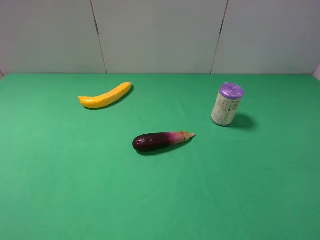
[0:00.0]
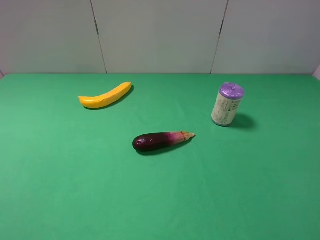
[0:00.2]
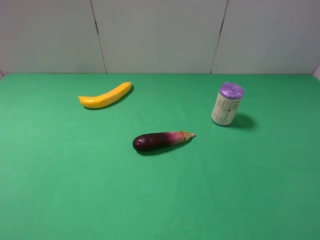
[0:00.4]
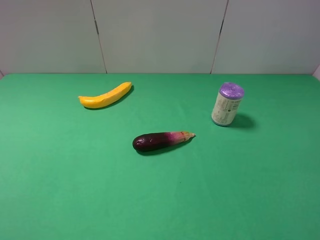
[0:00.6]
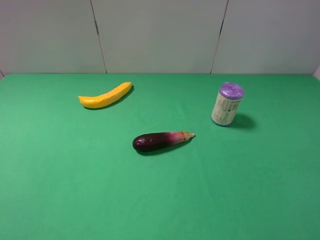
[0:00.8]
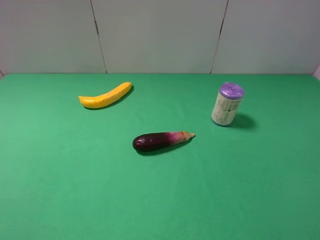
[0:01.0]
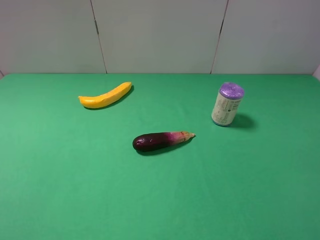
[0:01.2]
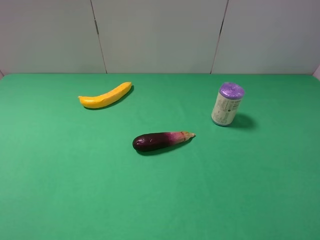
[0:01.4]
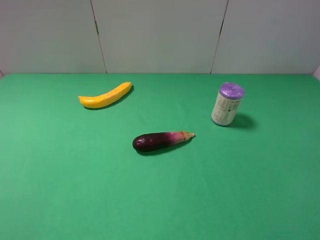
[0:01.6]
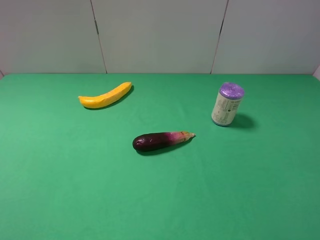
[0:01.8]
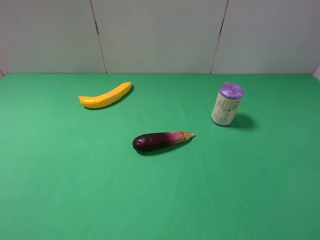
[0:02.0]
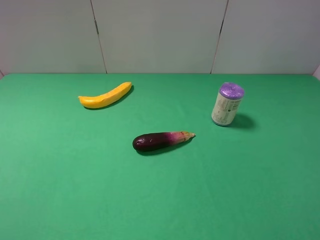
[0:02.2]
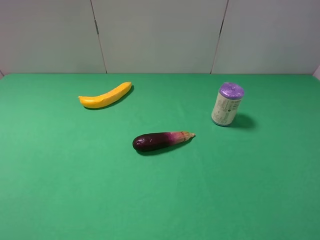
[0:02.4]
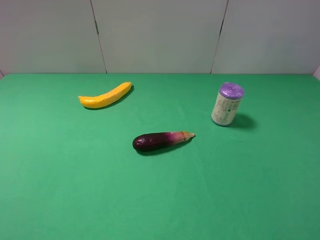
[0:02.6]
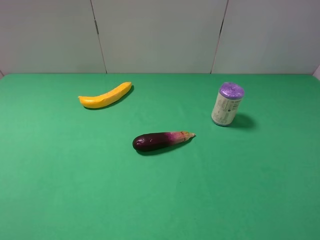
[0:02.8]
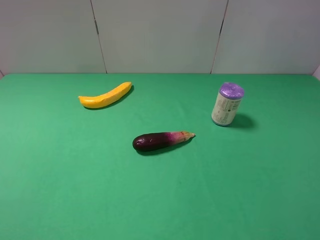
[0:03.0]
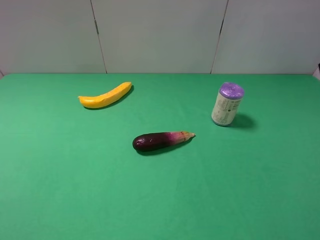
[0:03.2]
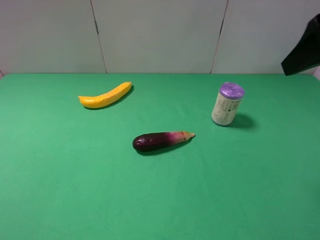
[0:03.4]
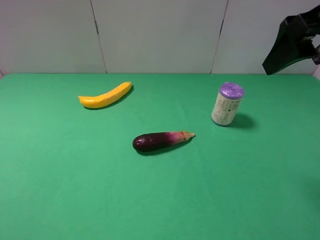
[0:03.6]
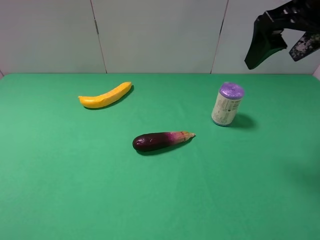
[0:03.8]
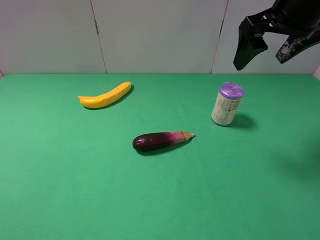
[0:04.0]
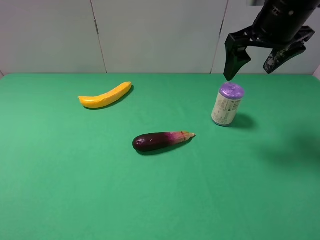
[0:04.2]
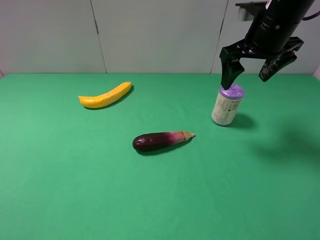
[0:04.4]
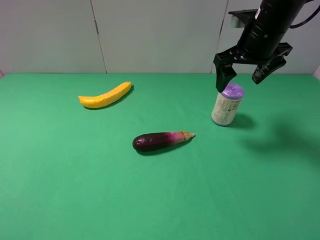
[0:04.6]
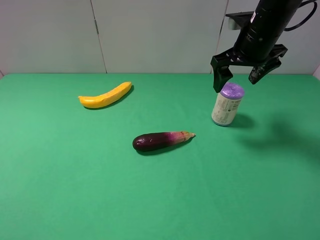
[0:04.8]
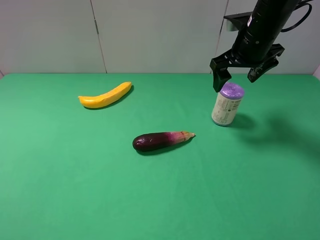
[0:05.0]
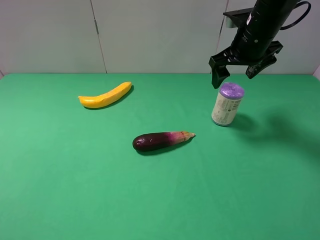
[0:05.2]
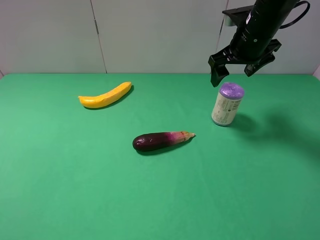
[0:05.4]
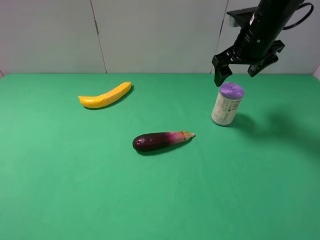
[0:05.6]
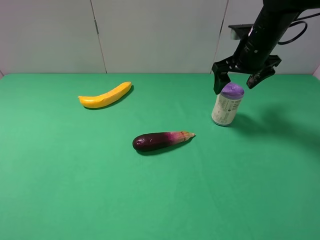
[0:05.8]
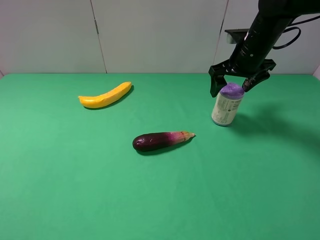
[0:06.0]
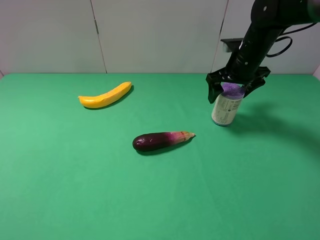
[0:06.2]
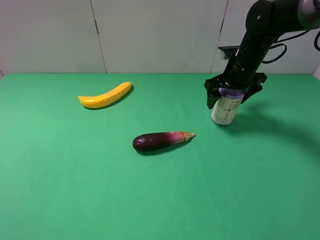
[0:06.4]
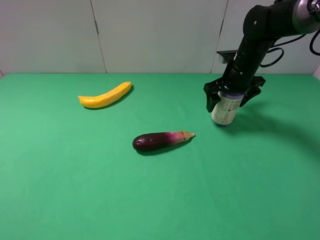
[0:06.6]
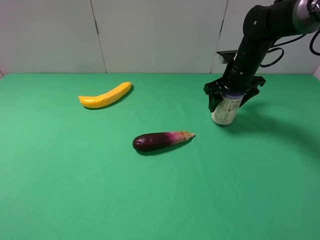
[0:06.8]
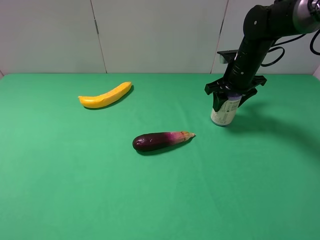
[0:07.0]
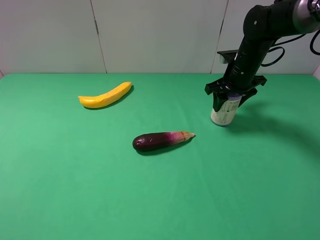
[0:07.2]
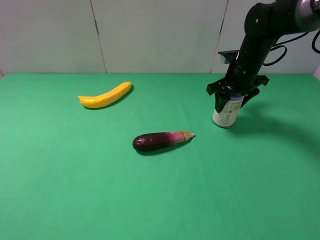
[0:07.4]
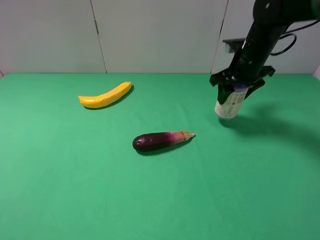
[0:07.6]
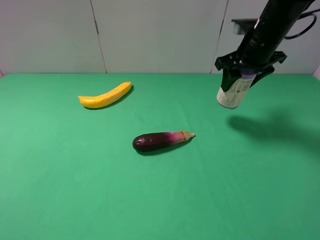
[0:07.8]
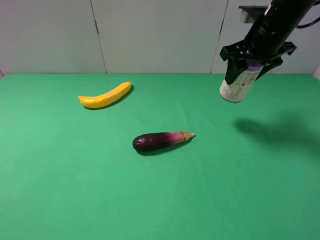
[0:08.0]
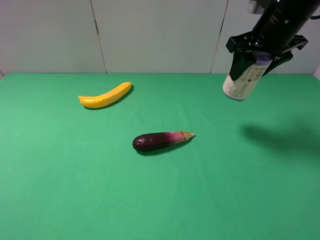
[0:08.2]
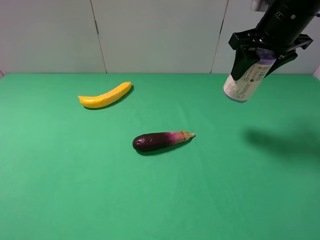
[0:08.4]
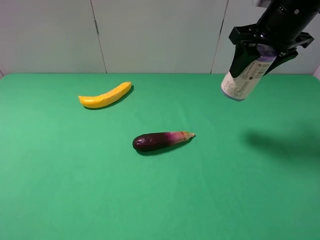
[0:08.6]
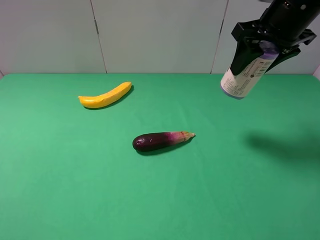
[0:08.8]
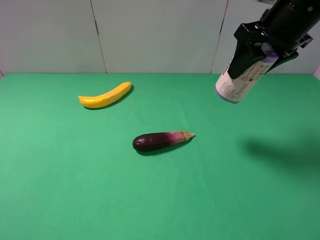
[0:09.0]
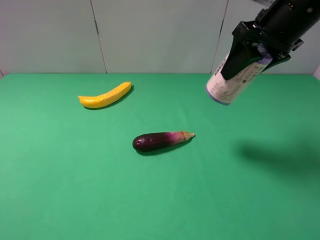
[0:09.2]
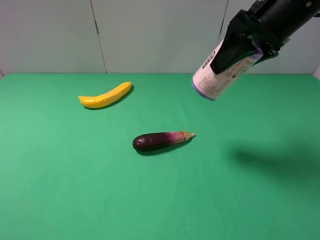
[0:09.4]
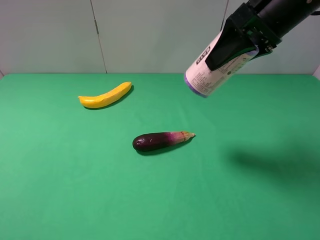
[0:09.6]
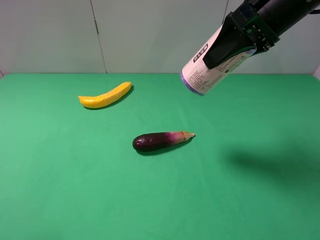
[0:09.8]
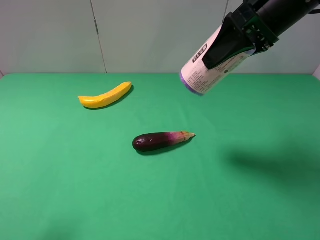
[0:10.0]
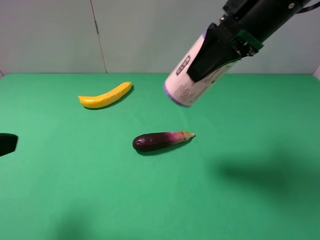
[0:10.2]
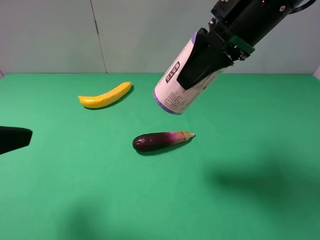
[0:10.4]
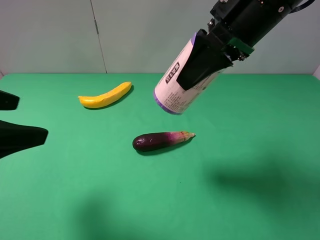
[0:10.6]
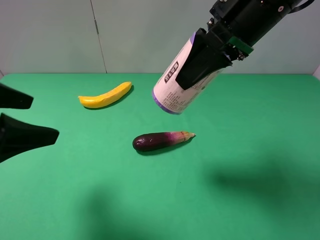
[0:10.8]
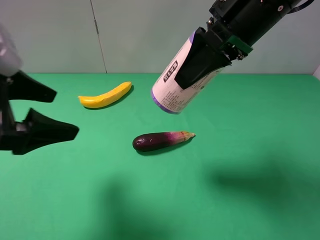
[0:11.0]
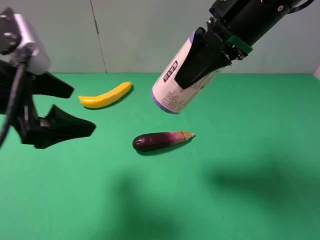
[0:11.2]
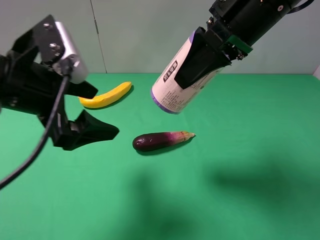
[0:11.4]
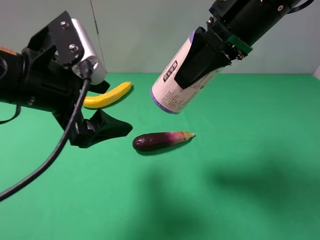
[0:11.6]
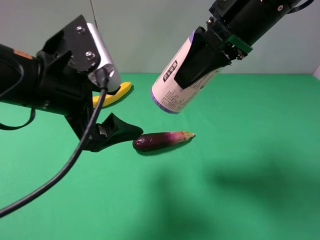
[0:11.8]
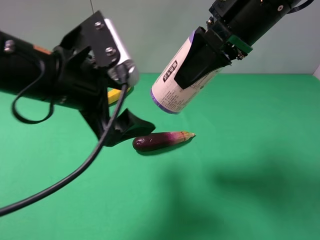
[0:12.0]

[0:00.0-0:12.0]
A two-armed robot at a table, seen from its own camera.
Task of the whole recording: use the right gripper to pick up the item and transfer it from the right gripper to the left gripper.
Step, 0:00.0 to 0:06.8: Use the right gripper to grab the purple garbage bag on the right side of the table.
0:00.0 to 0:01.6: Both grippers stay put.
0:03.0 to 0:04.4: The right gripper shifts about 25 cm forward, to the left and downward.
0:04.4 to 0:06.0: The right gripper shifts approximately 10 cm downward and forward.
0:06.0 to 0:07.6: The right gripper closes its fingers.
0:07.6 to 0:09.0: The right gripper goes roughly 15 cm upward and backward.
0:09.0 to 0:10.4: The left gripper goes some 10 cm forward. The right gripper is displaced to the left by some 5 cm.
0:10.4 to 0:12.0: The left gripper moves to the right and forward, about 20 cm.

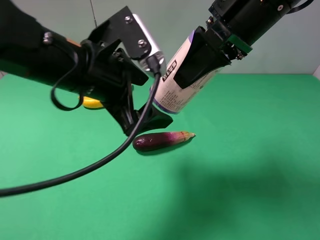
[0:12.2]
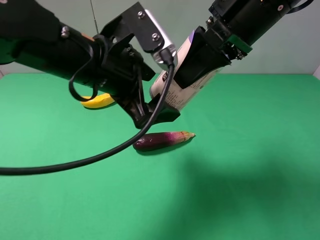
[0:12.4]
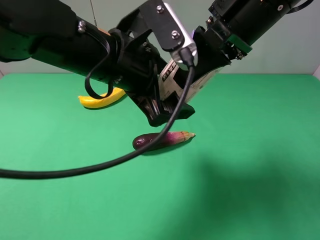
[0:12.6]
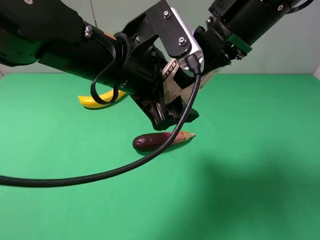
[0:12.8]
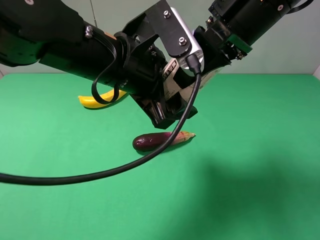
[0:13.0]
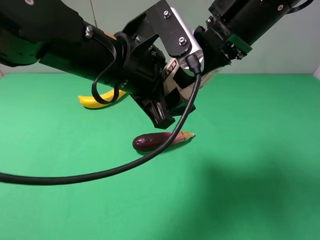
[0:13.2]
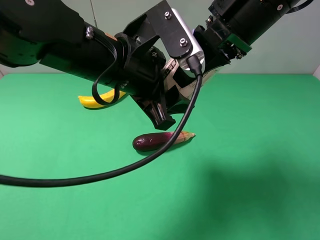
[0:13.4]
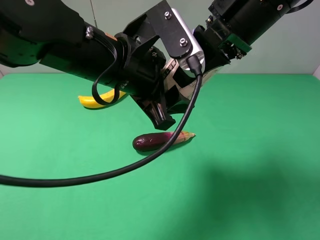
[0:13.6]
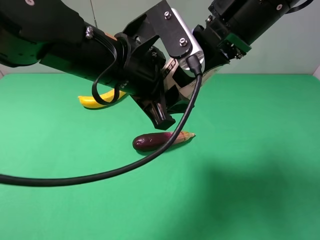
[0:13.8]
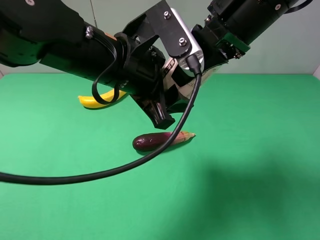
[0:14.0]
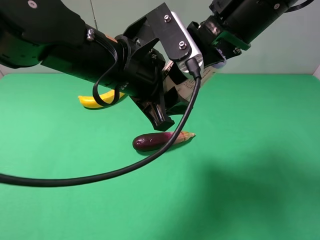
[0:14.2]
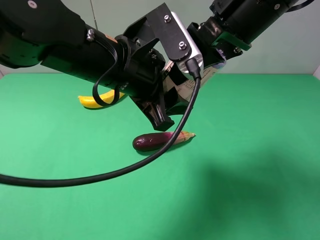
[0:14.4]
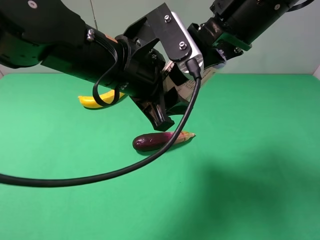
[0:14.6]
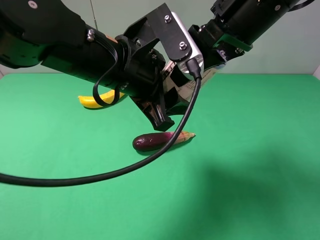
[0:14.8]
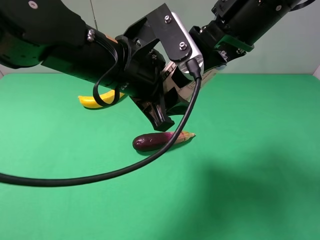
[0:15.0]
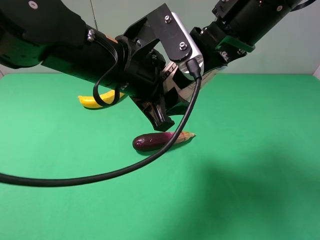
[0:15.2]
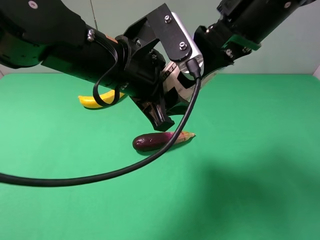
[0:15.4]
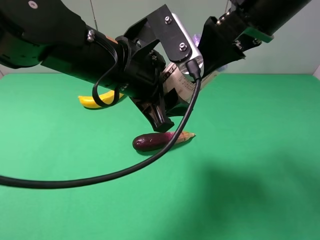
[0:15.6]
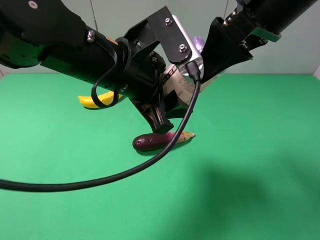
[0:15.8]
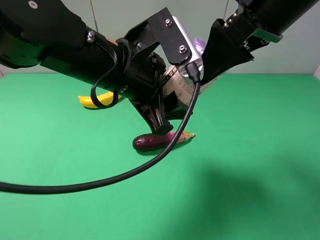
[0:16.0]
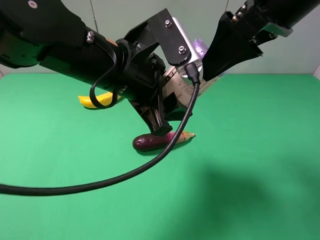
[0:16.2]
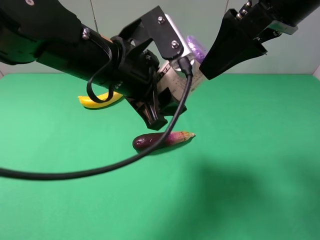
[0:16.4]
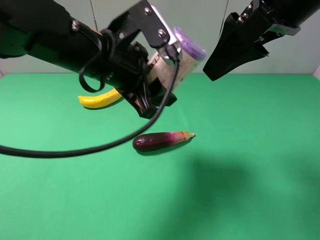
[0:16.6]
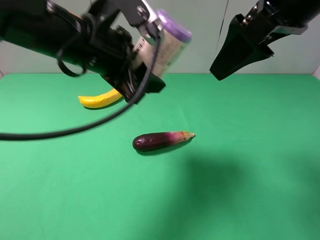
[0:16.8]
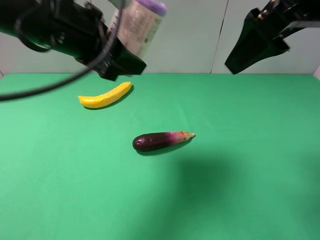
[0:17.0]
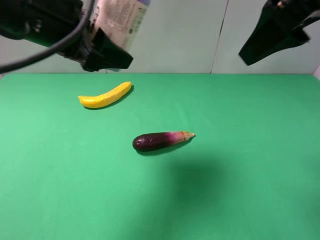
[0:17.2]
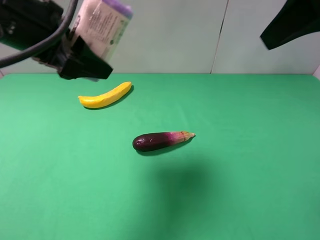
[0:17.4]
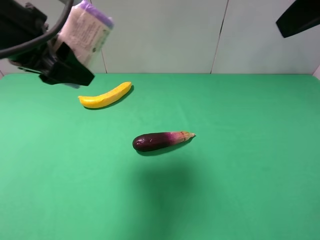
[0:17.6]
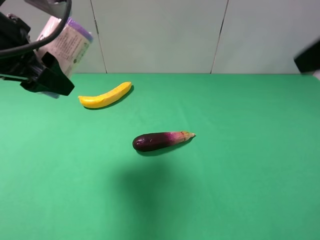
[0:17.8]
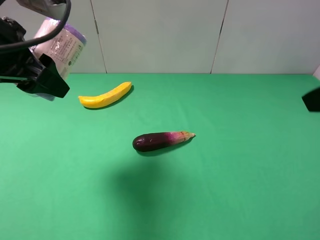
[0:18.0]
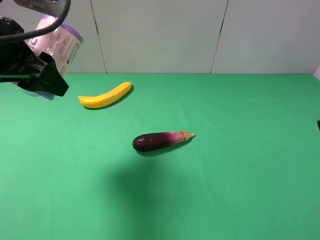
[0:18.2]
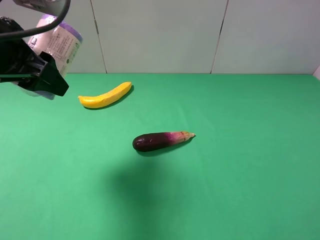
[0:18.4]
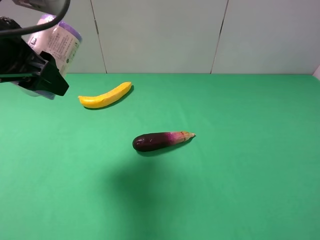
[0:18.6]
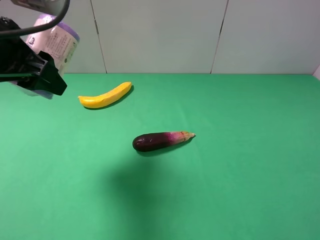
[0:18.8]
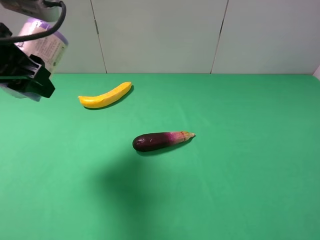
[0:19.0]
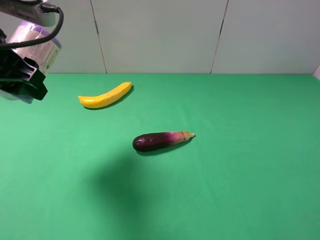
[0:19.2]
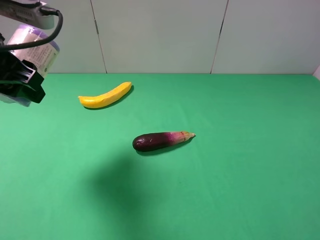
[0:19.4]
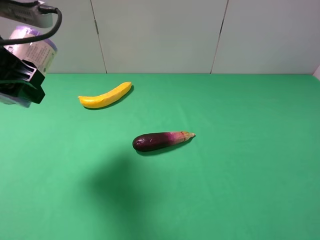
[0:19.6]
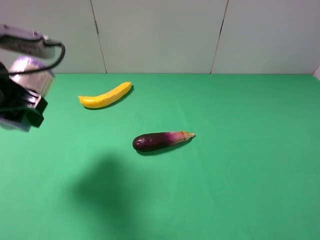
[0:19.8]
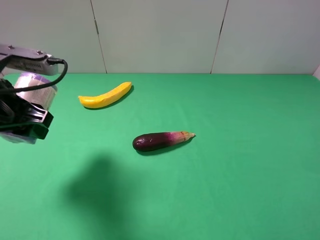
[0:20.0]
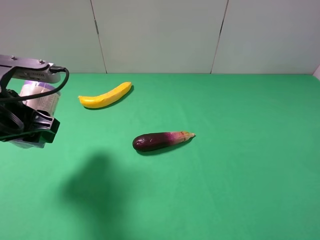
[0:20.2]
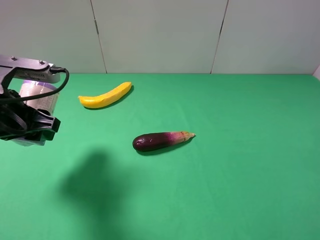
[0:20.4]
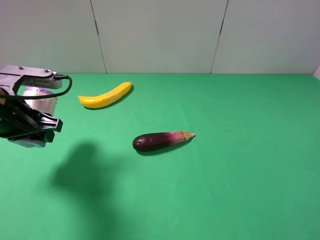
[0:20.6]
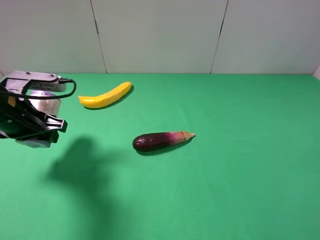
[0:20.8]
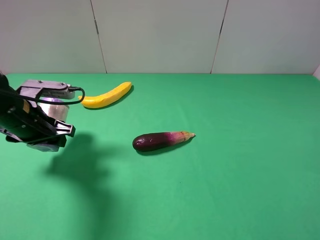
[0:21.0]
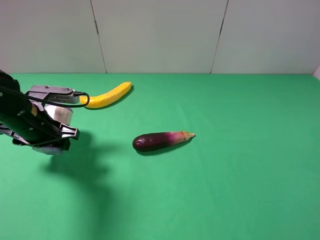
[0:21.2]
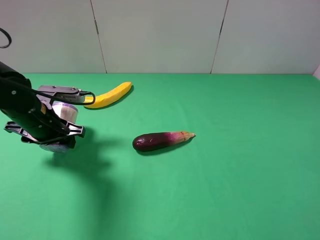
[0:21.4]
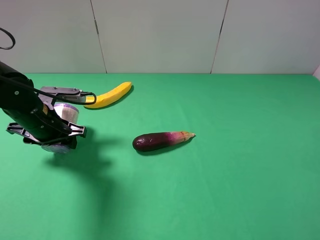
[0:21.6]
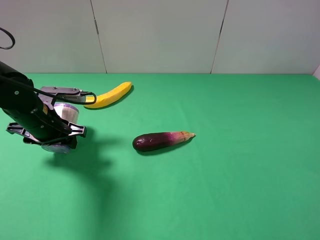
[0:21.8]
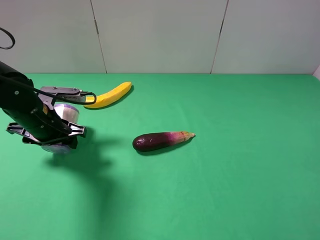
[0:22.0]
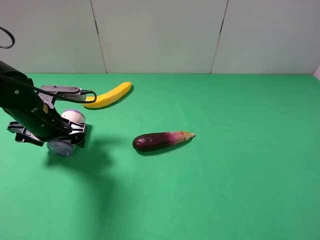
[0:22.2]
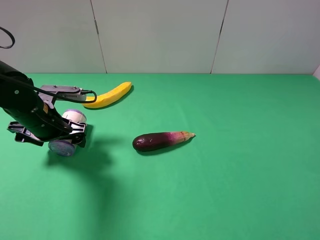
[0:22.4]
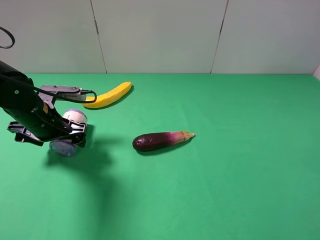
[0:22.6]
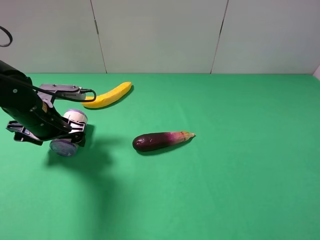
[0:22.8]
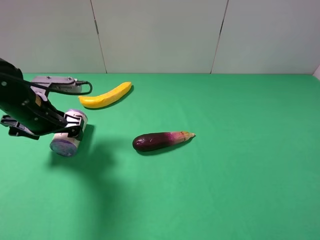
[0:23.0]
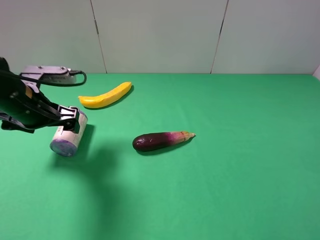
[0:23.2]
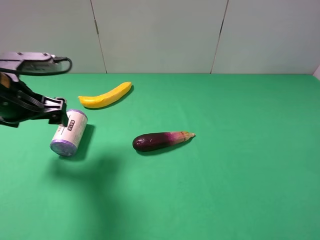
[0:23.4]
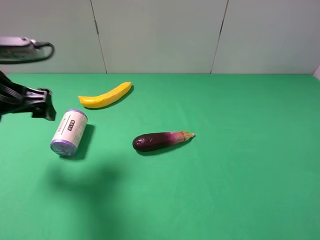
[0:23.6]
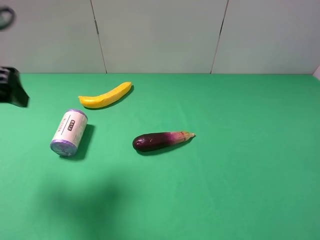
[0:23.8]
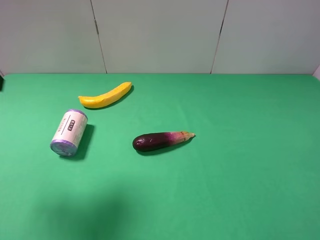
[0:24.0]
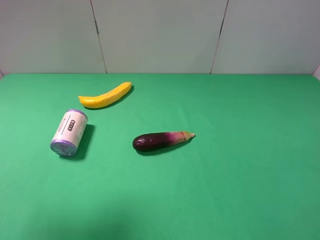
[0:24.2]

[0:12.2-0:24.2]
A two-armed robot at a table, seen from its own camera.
Task of the whole recording: use the right gripper to pick up the item and transfer it from the right gripper to the left gripper.
Step, 0:12.2 to 0:16.0: Pass the purple garbage bag to the left gripper.
Step, 0:16.2 to 0:22.2: The left gripper places purple garbage bag on the left side of the table.
0:12.2 to 0:13.8: The left gripper closes.
0:13.8 to 0:15.2: The right gripper opens.
0:15.2 to 0:16.6: The right gripper moves approximately 5 cm.
0:16.6 to 0:18.2: The left gripper is displaced to the left by some 10 cm; the right gripper moves backward and to the right, roughly 20 cm.
0:18.2 to 0:19.8: The left gripper moves downward, some 5 cm. The right gripper moves backward and downward, roughly 10 cm.
0:19.8 to 0:21.2: The left gripper goes some 15 cm downward and forward.
0:21.2 to 0:22.6: The left gripper opens up.
0:22.6 to 0:24.2: The left gripper shifts some 30 cm upward and backward.
